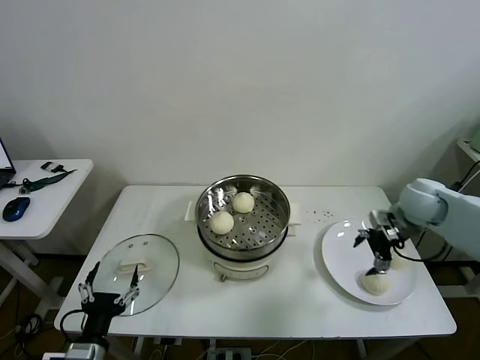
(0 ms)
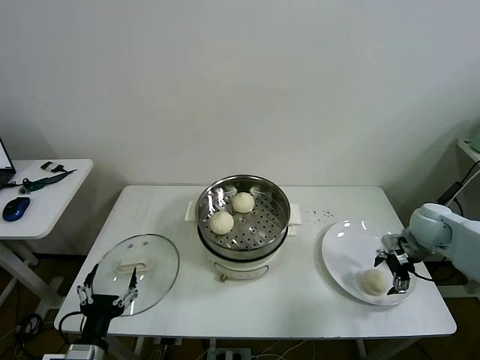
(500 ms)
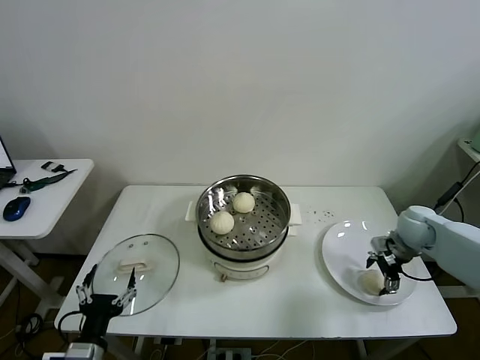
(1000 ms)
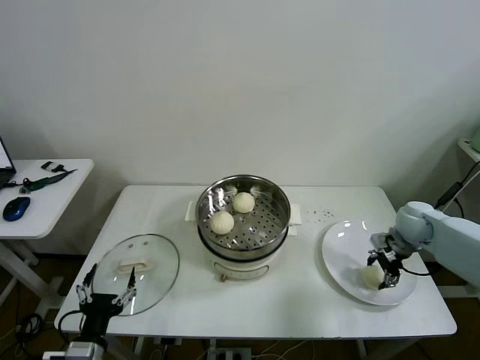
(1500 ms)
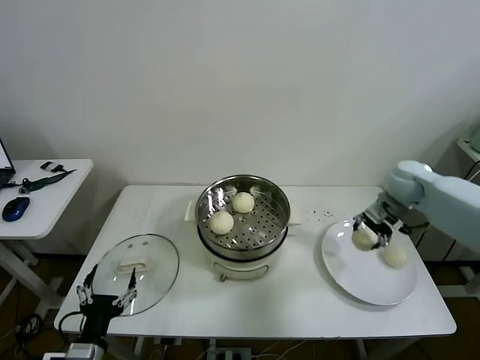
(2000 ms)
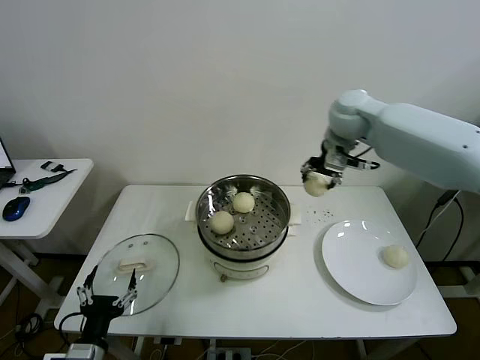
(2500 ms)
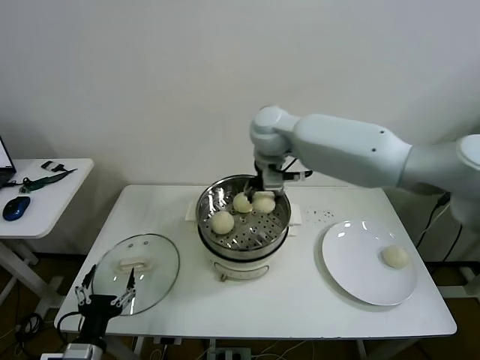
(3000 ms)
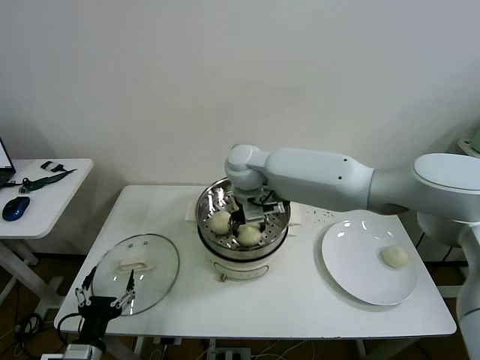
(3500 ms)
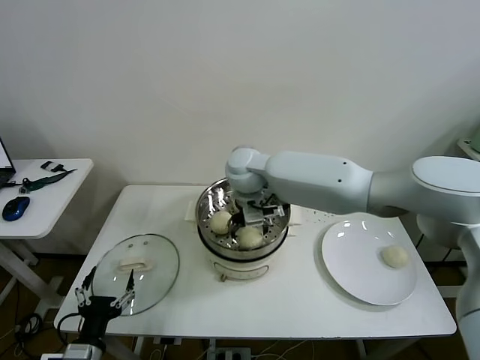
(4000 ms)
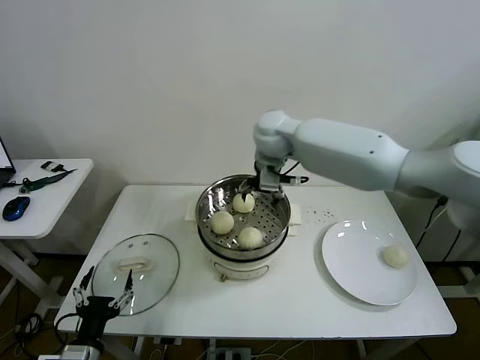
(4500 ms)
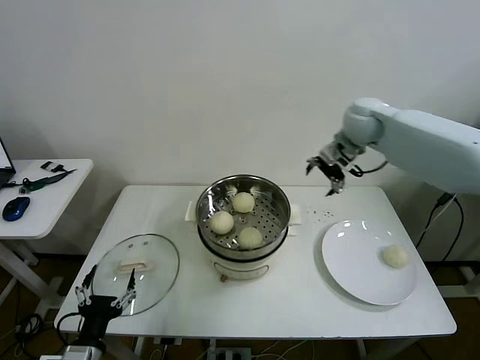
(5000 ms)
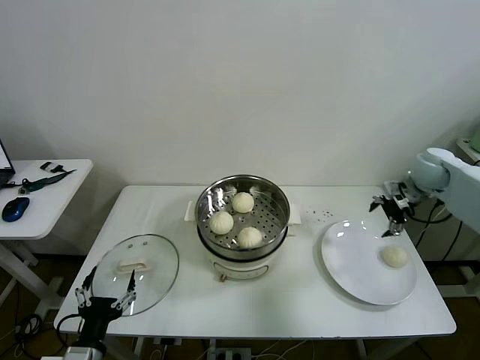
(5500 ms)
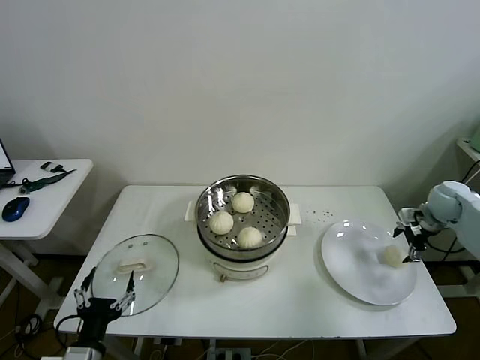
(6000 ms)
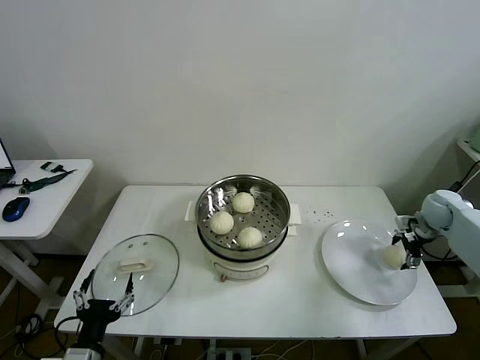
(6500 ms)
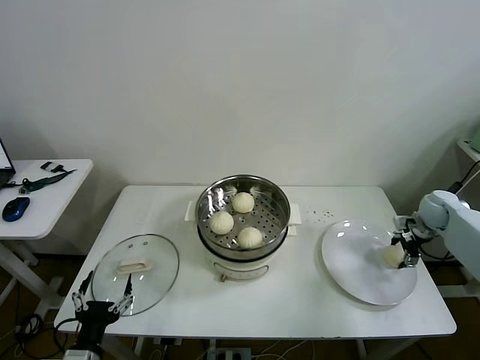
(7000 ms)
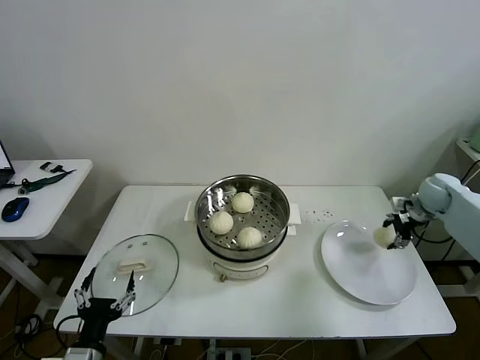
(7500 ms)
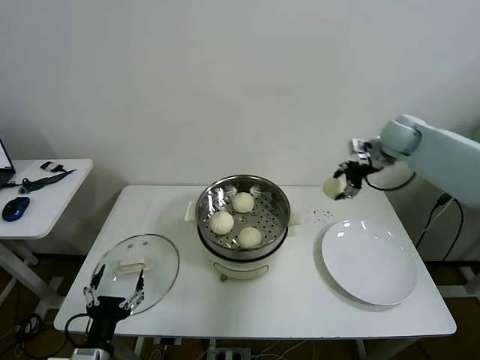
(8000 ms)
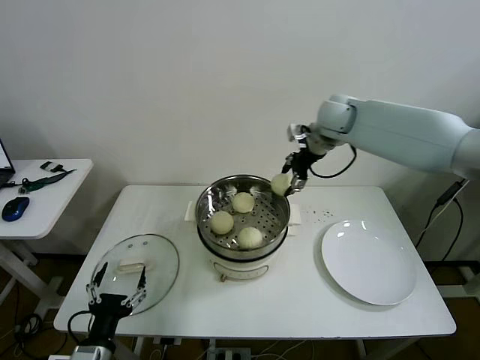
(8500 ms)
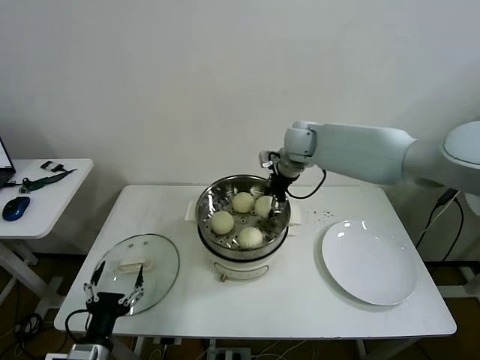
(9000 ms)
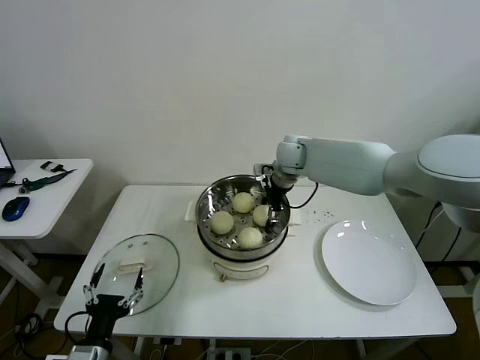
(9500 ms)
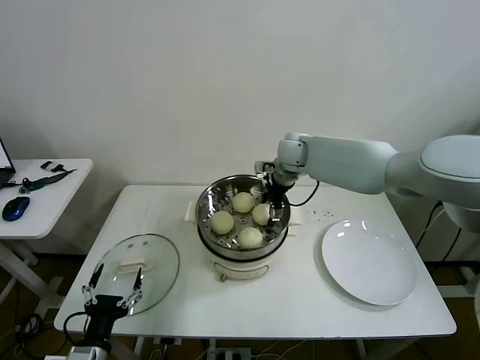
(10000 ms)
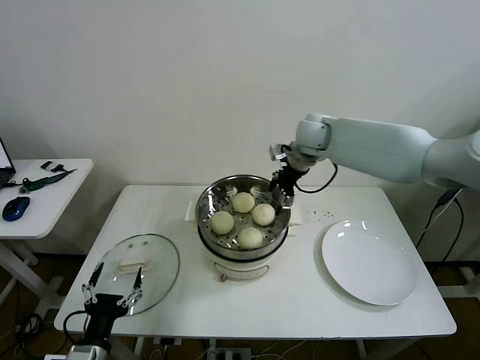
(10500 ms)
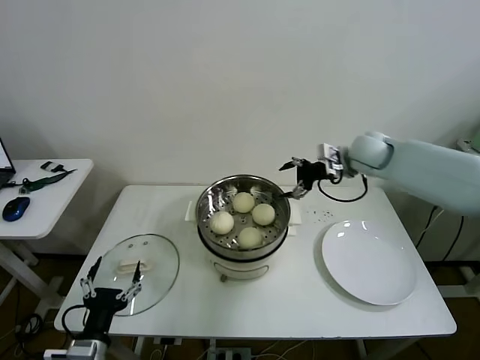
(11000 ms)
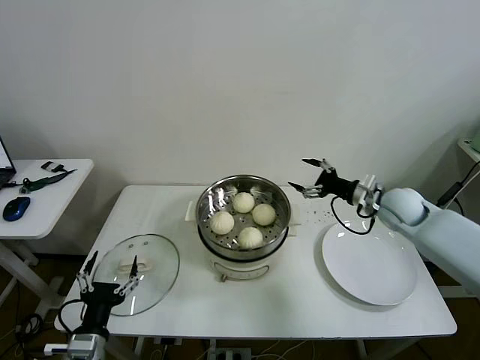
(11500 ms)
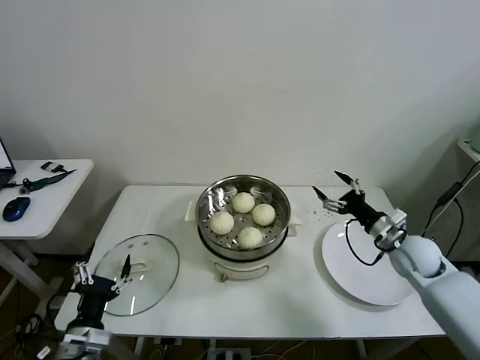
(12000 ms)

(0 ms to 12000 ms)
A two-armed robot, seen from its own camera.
Task of the whole recording: take steamed baozi put them in steamer then cover it.
Step, 0 ms - 1500 ms: Grasp the baozi in the plate with right gripper.
Step, 2000 ms - 4000 ms: Place the baozi on the steamer with right gripper.
Step, 4500 ms - 6500 ms: Grasp the baozi in the plate with right gripper.
Step, 7000 ms - 9500 ms: Place the baozi on the steamer with right gripper.
0 ms - 2000 ms: The right gripper goes roughly 5 cm forward, moves roughly 10 cm downward and comes back, and closes.
2000 ms - 4000 ms: The right gripper goes roughly 35 cm to the left, and opens.
4000 ms - 6000 ms: The right gripper is displaced to the right by some 50 cm.
6000 ms - 8000 ms: The right gripper goes roughly 25 cm upward, to the left and forward, and closes up.
8000 ms - 10000 ms: The right gripper shifts some 25 cm to the left, and opens up.
10000 ms - 12000 ms: The right gripper goes some 35 cm to the right, backward and downward.

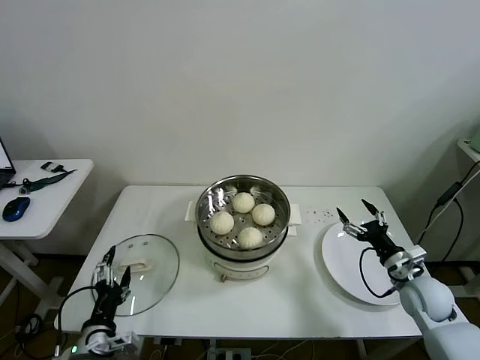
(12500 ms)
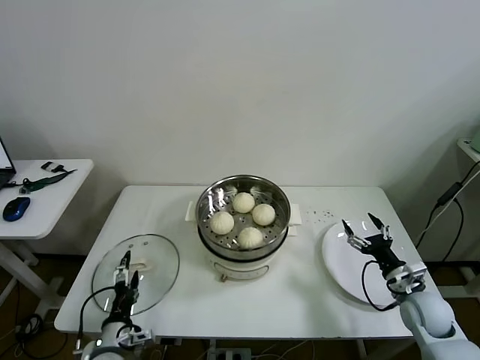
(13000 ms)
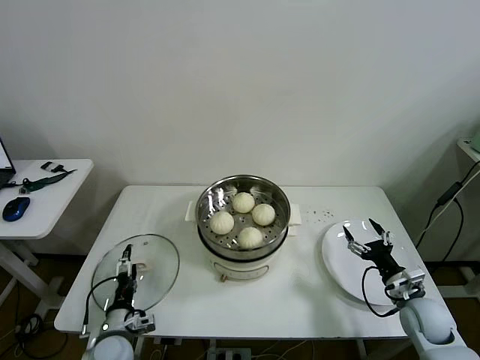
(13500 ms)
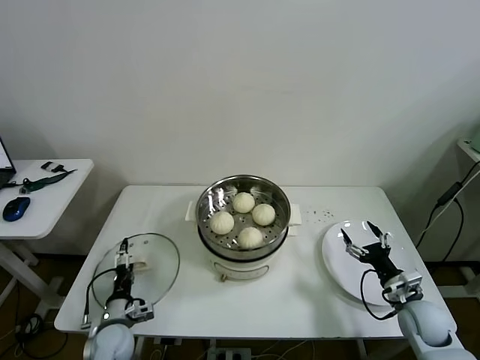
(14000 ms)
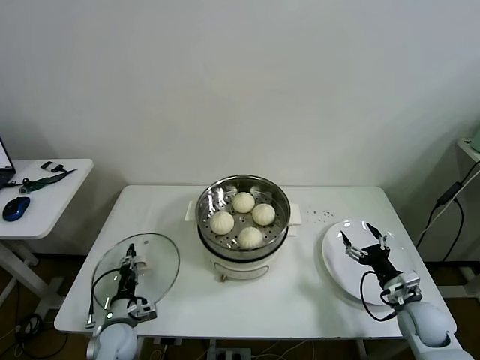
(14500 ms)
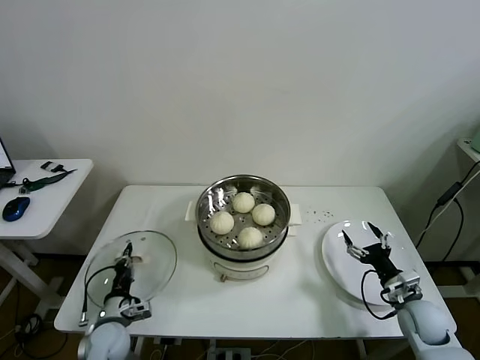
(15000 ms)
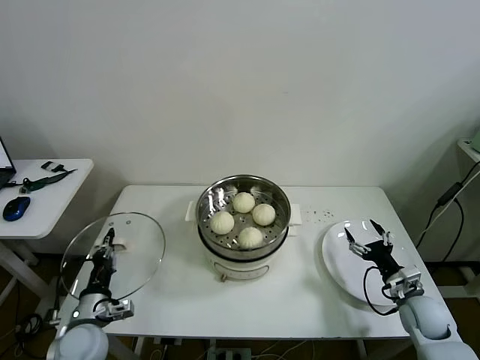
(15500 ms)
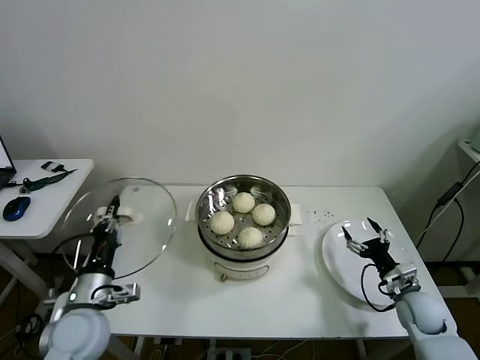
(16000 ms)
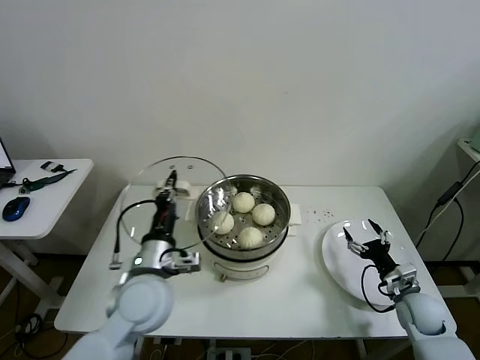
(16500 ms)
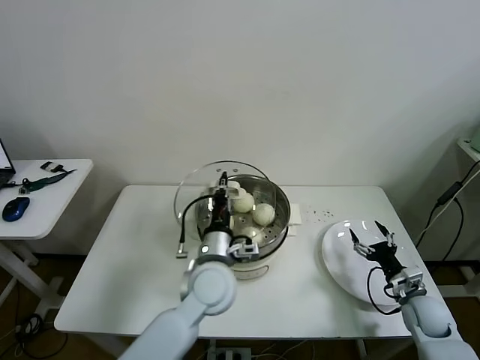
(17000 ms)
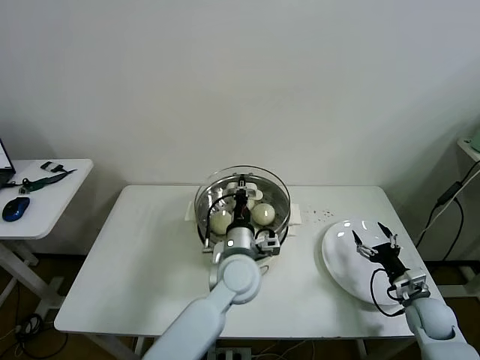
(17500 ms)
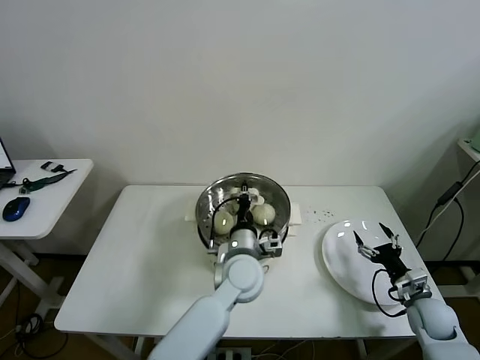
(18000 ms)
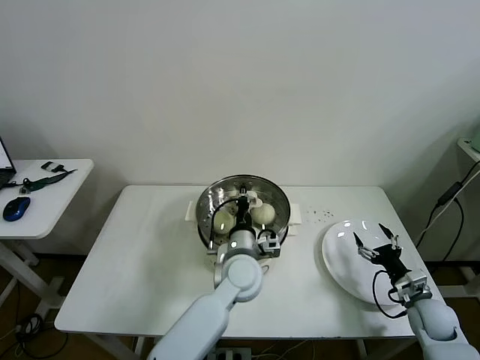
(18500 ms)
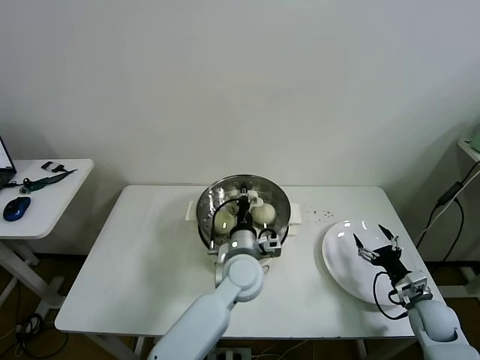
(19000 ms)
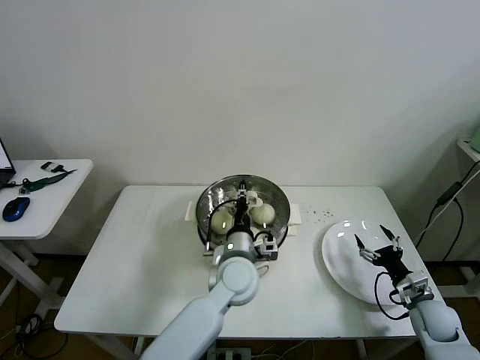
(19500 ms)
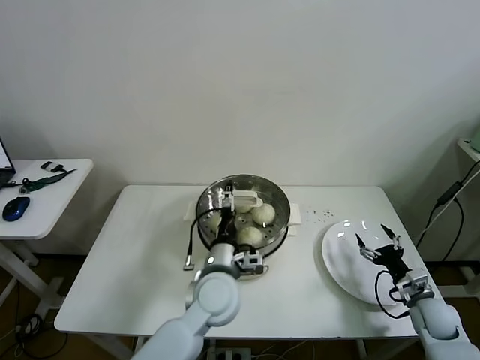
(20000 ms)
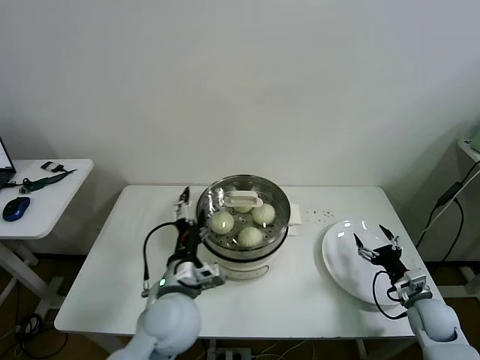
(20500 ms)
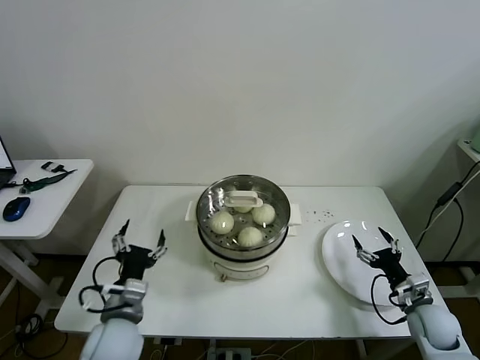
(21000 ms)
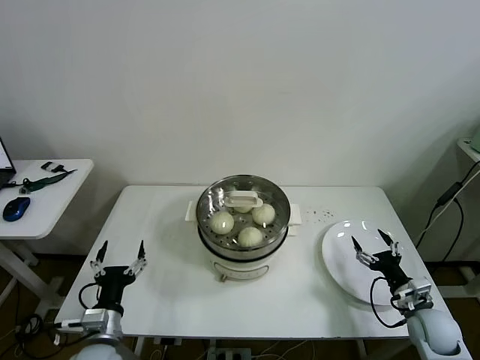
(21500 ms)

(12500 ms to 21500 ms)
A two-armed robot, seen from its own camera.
Task of the whole recording: take steamed baozi put them in steamer then cover it.
Step, 12500 ms - 14500 ms: Grasp the pot lid with left gripper.
Step, 15000 ms - 19500 ms: Place the pot lid on the steamer with left gripper.
12500 ms - 14500 ms: The right gripper moves downward, roughly 5 cm, while the left gripper shifts approximately 15 cm downward and forward, and closes.
14500 ms - 17000 ms: The left gripper moves to the right and upward, about 35 cm, and closes.
17000 ms - 19500 ms: The left gripper shifts roughly 5 cm to the right.
19500 ms - 21500 ms: The left gripper travels to the left and backward by some 30 cm, and opens.
